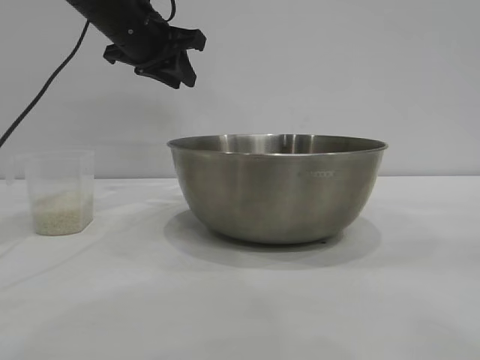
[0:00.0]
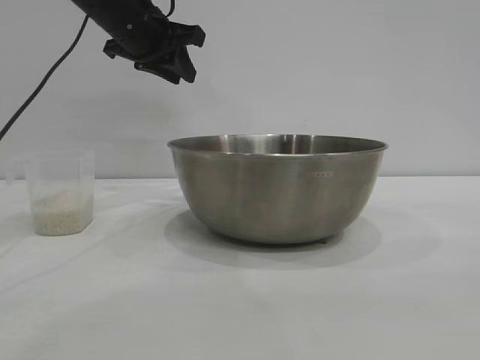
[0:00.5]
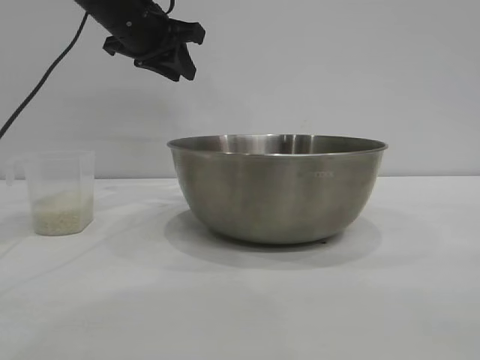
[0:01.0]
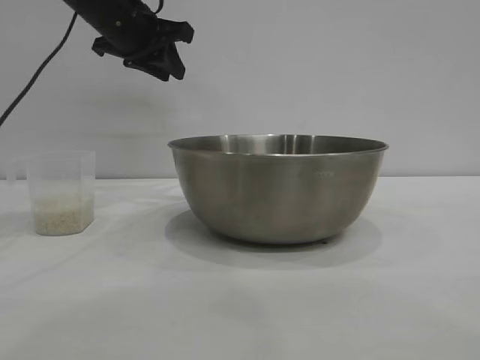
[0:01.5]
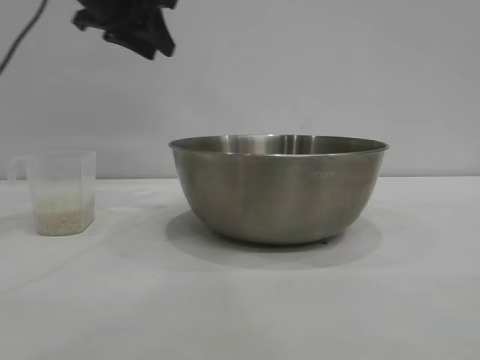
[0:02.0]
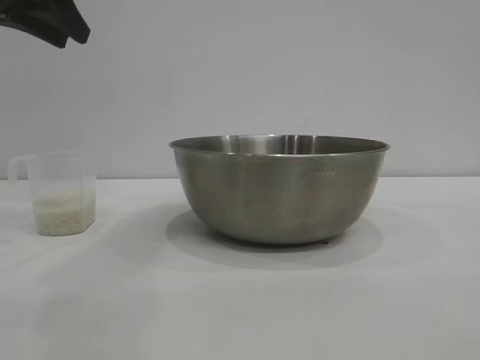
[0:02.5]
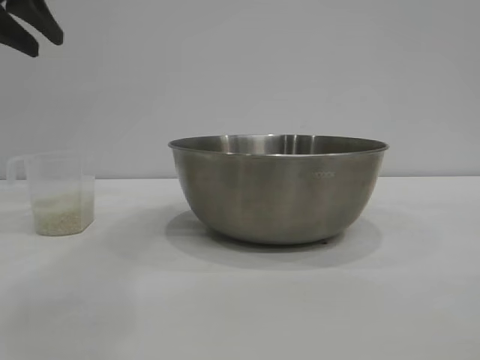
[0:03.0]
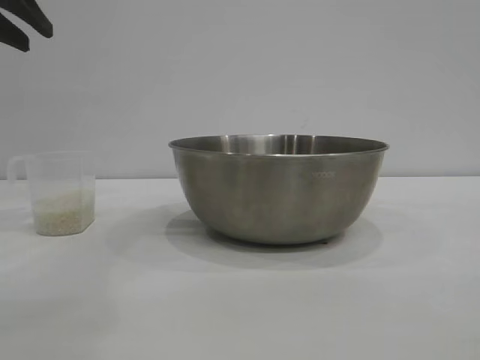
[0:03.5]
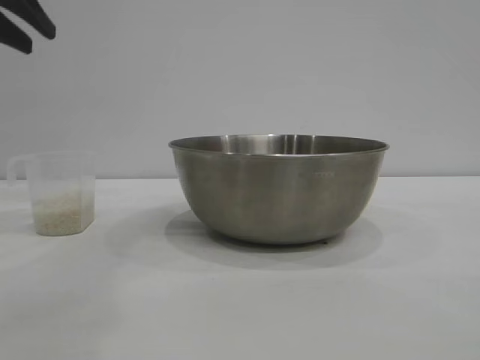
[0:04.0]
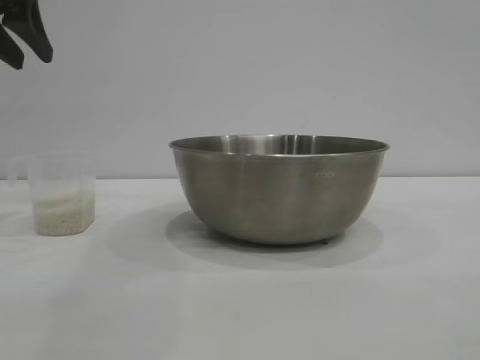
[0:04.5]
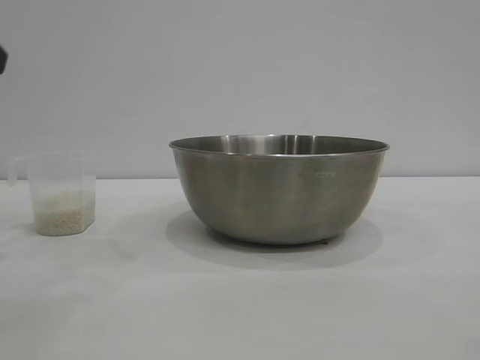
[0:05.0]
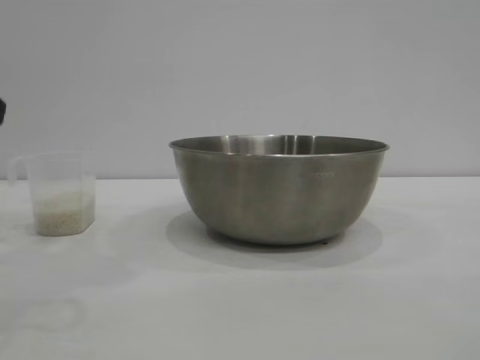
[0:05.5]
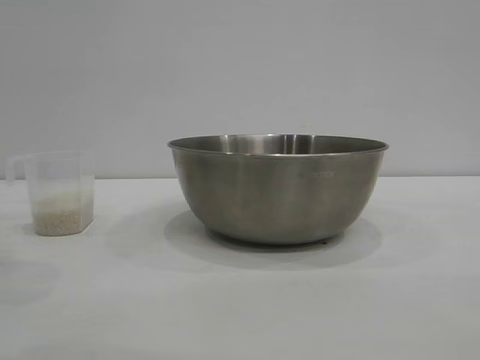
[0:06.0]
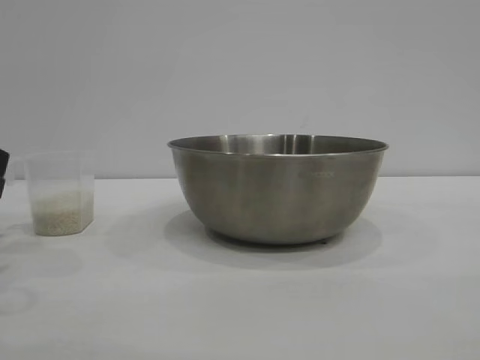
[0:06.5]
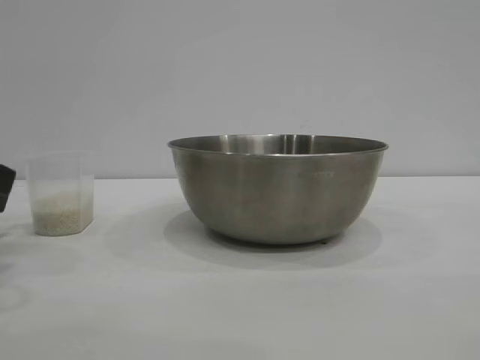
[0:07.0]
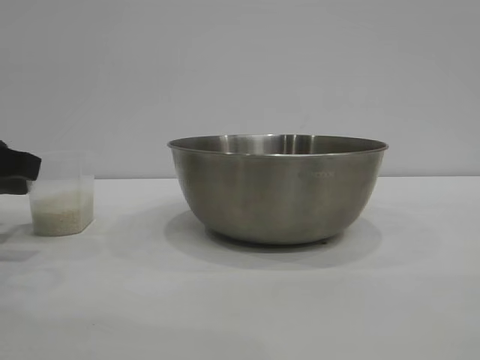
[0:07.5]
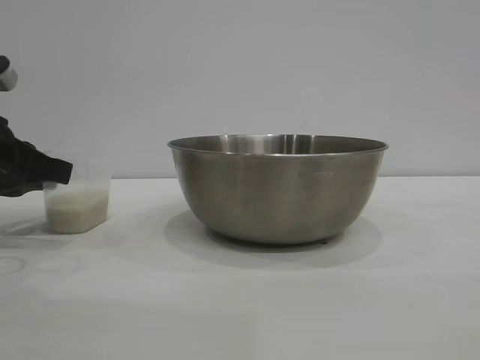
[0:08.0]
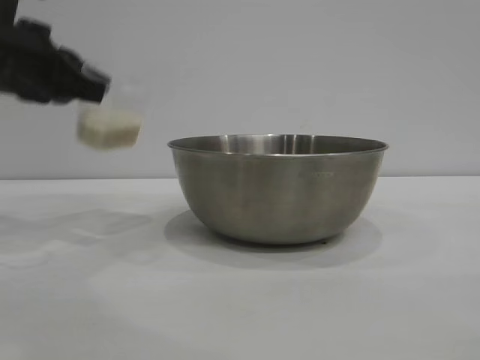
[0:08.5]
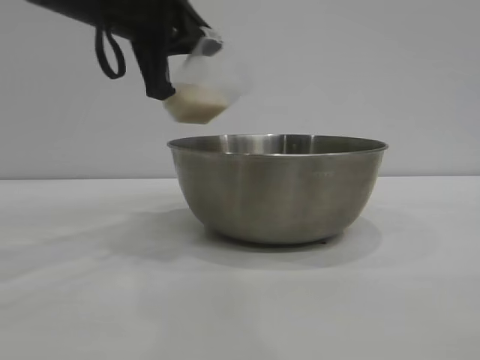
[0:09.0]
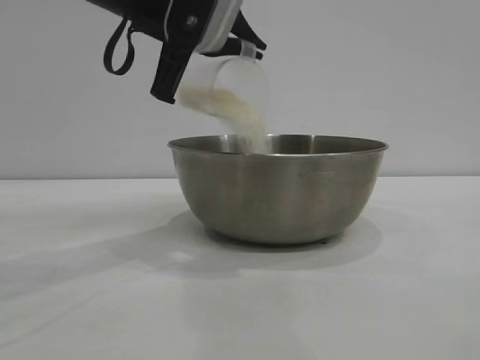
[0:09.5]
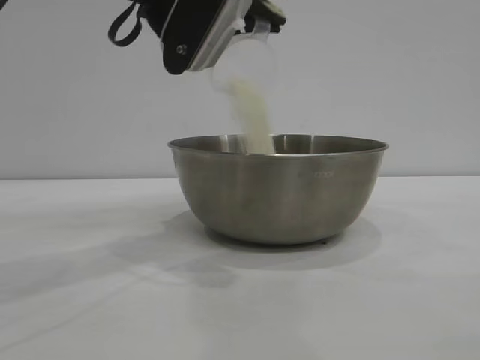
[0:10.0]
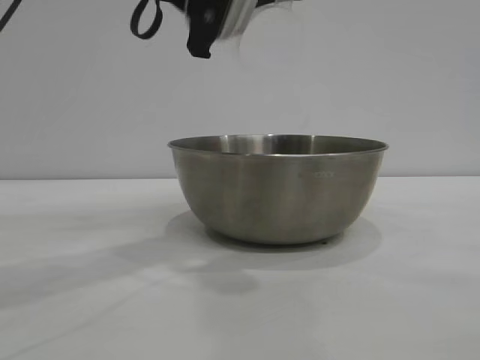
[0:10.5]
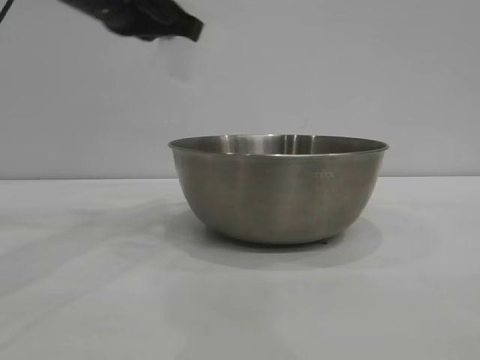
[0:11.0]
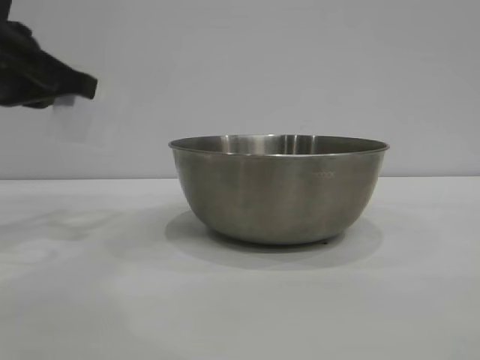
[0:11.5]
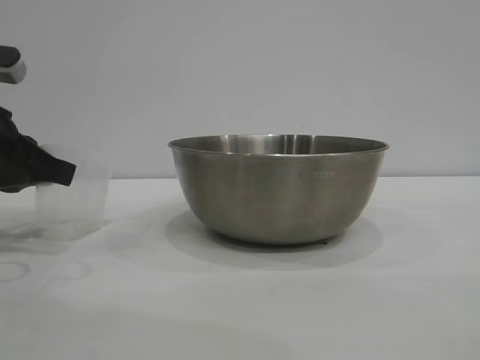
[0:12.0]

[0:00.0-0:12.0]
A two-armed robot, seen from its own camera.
Task of the whole recording: the right gripper grasp the rice container and place it in the center of the table, the left gripper grasp the rice scoop and pour the rice into the rice container.
Step, 0:00.0 to 0:08.0: Pick up the cup with rice in it with the left gripper.
Step, 0:08.5 to 0:10.0: Pour the rice from the cup into the bowl with the left gripper.
